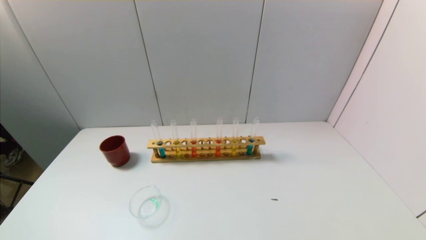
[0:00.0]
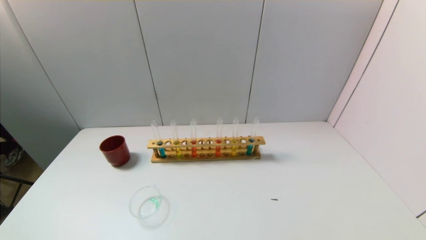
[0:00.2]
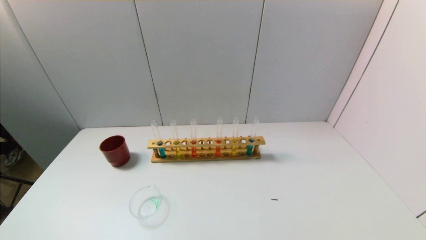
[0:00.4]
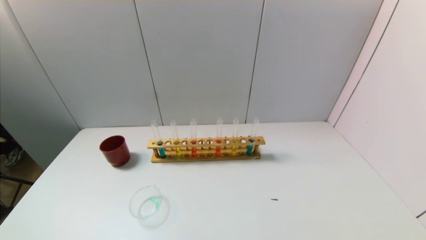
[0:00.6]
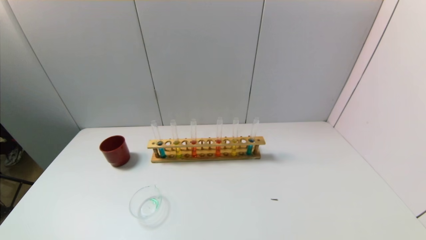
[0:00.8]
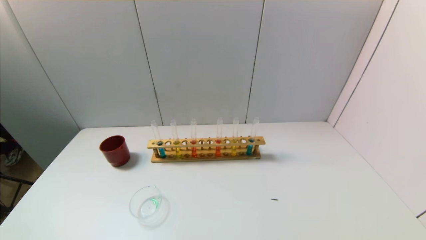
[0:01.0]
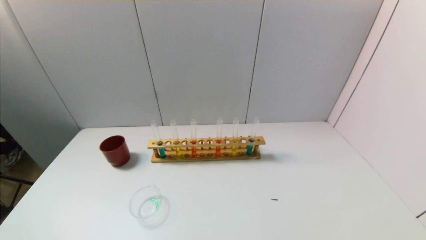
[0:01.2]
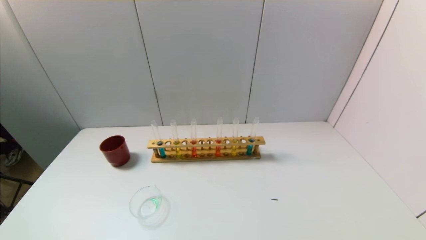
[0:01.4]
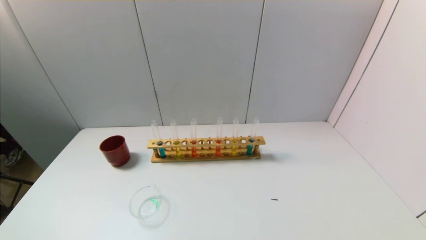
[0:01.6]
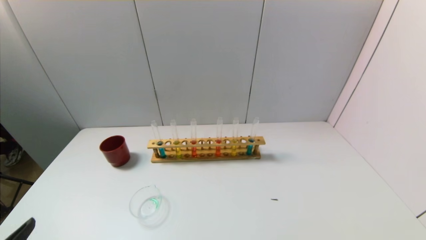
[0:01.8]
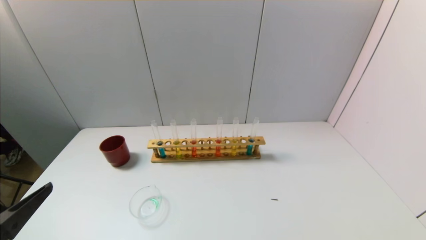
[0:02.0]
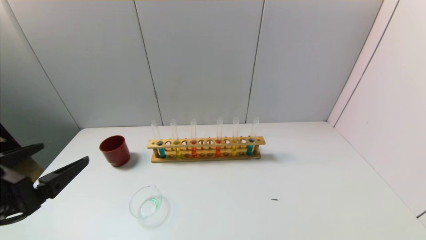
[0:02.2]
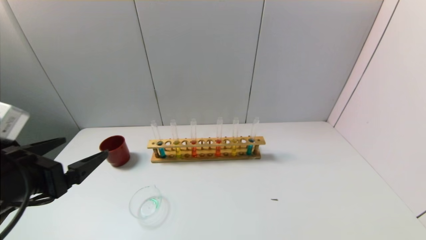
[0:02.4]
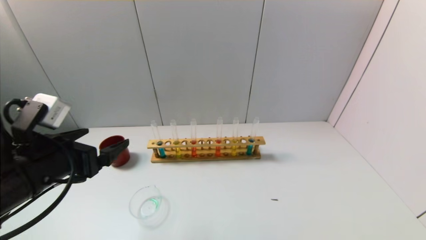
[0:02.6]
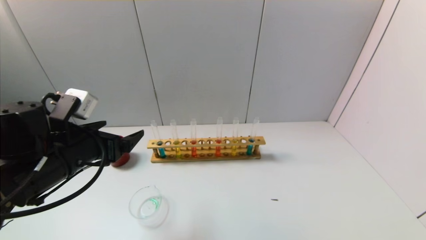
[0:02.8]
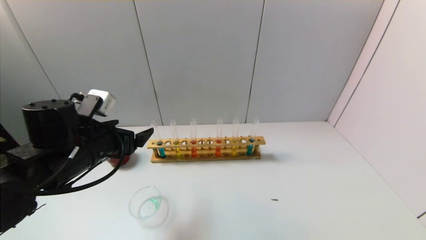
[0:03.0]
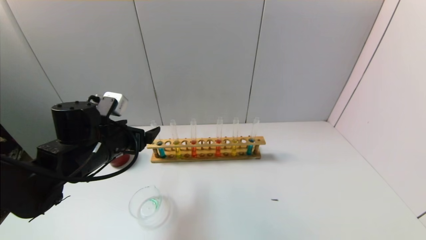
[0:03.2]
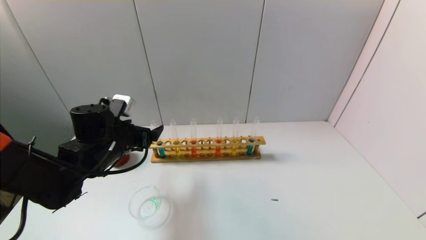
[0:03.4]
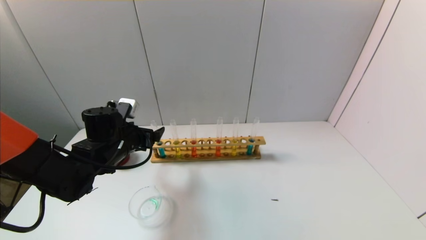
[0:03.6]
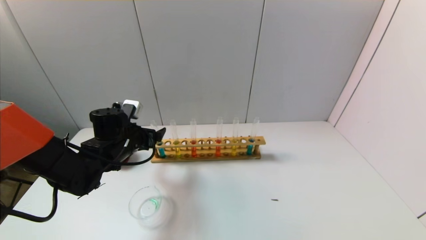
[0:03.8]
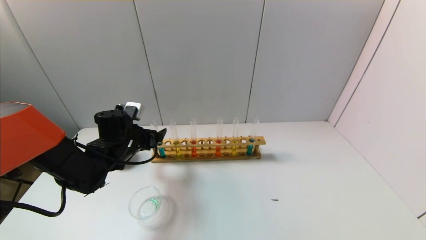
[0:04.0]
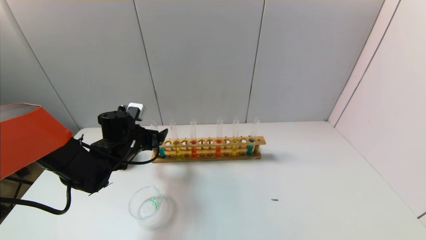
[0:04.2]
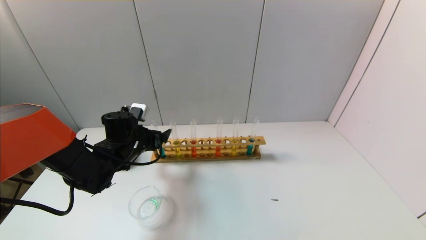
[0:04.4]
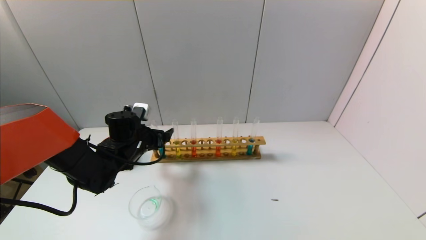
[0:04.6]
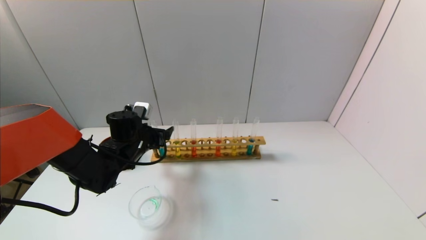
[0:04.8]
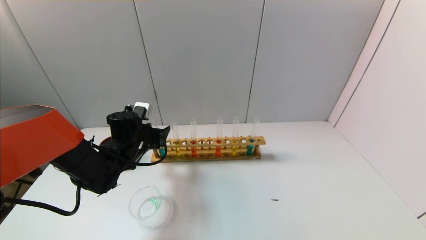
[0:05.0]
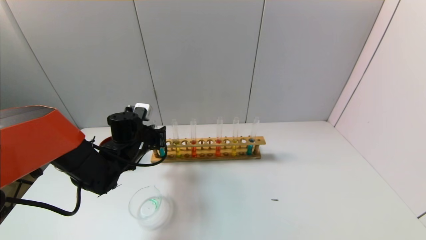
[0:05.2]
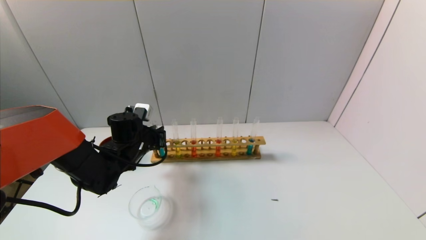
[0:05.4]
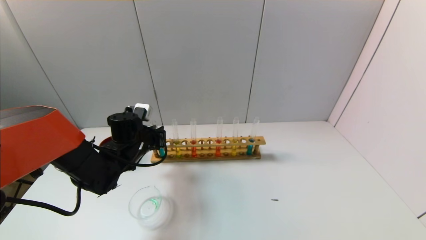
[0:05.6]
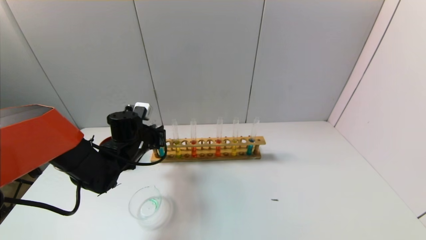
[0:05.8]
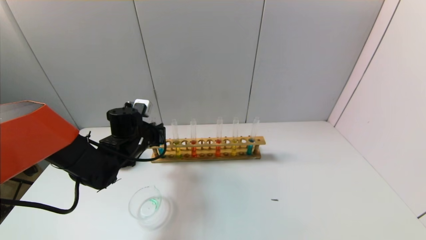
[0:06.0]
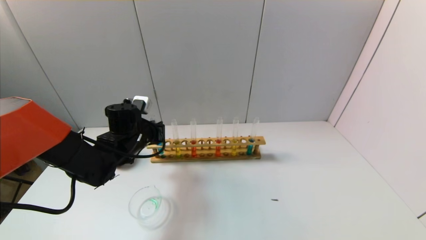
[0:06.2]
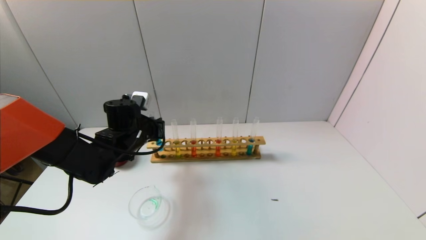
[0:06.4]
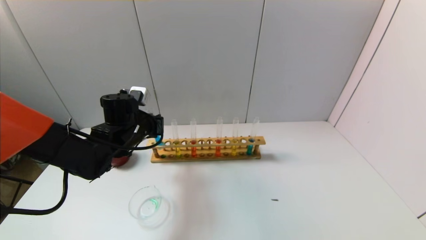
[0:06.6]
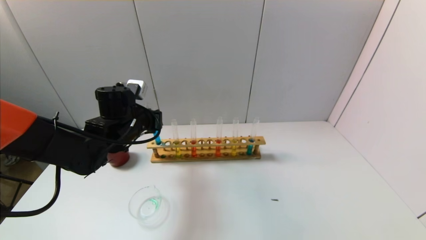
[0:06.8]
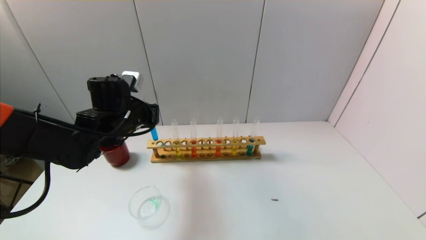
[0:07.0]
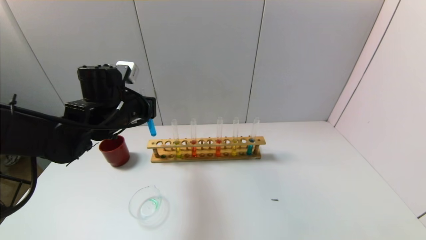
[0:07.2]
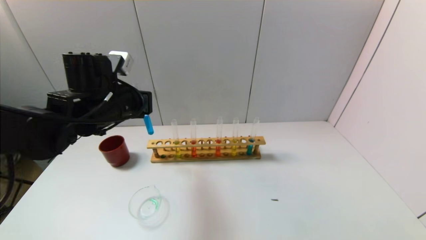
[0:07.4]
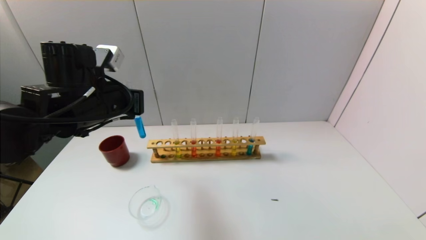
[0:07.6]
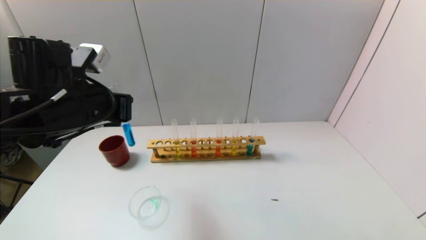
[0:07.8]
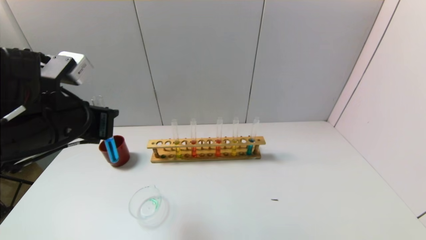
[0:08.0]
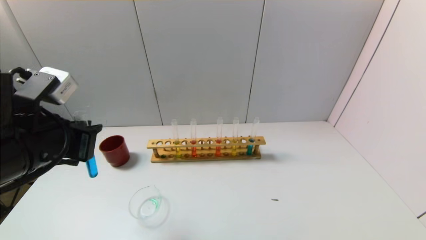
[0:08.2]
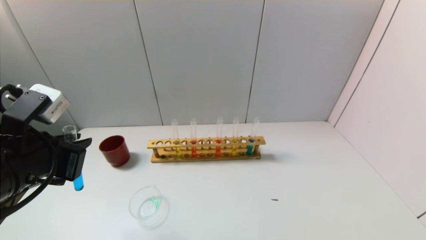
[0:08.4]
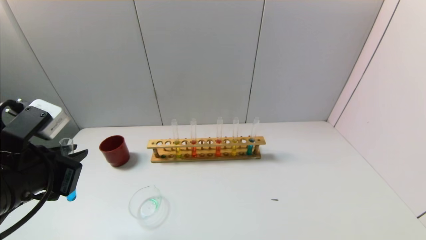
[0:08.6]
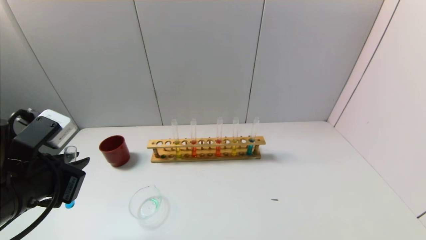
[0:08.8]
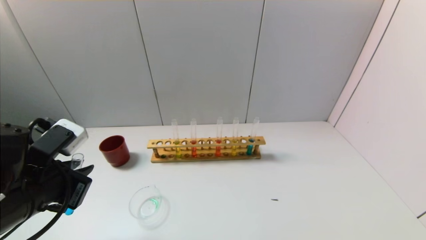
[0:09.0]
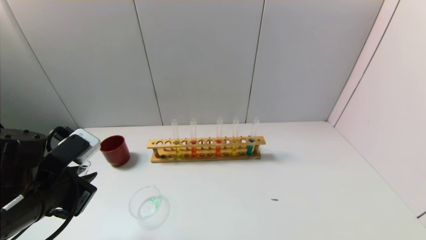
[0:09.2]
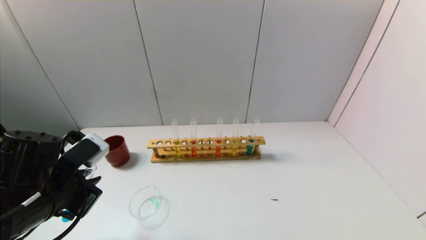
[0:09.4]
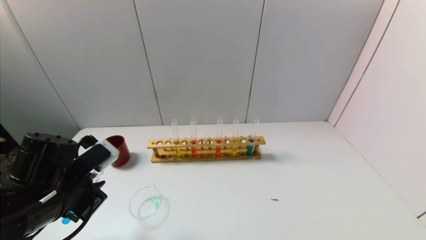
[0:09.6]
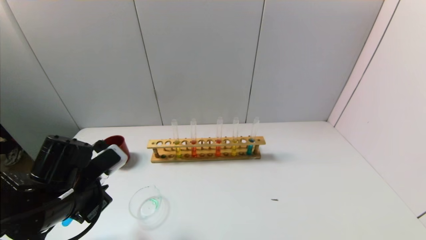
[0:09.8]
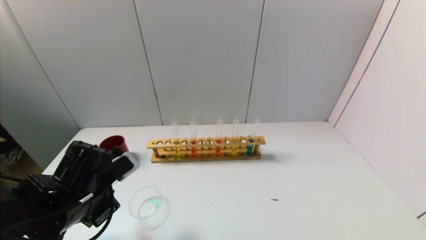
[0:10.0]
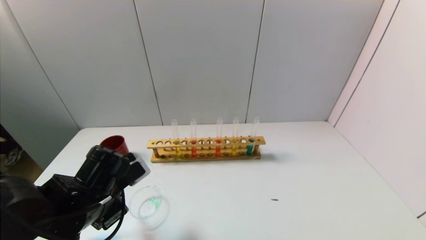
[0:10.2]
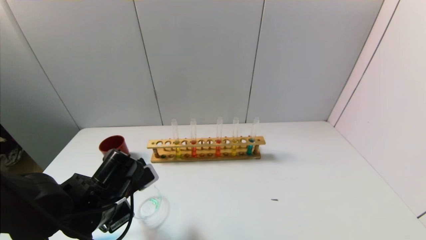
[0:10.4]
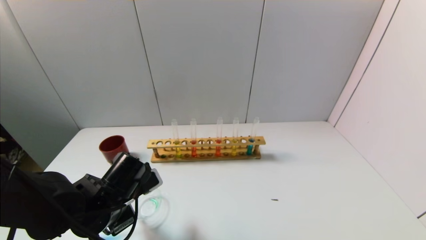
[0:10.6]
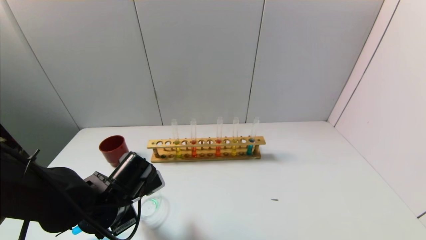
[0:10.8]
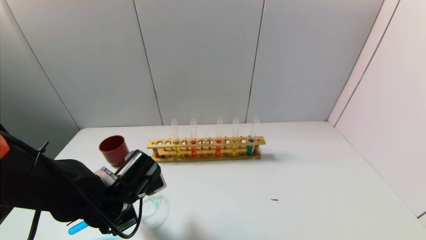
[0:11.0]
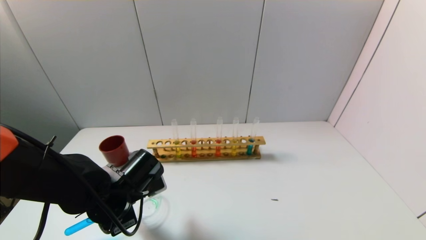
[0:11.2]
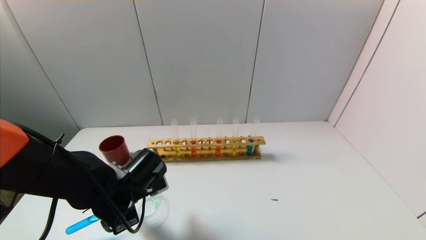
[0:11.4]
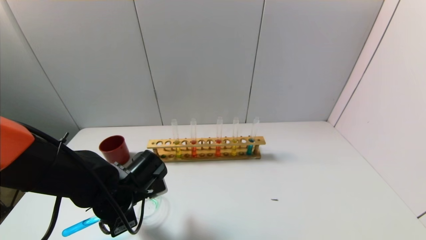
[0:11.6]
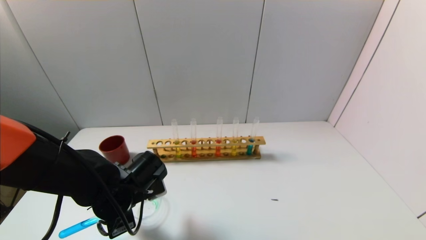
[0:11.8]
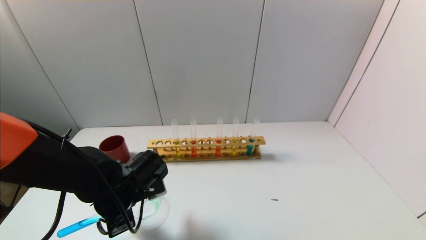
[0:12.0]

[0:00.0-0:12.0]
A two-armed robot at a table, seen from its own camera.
Task of the whole recording: pick up the test tube with yellow pigment and the test tube with blue pigment by grippers and pour them into the beaker.
Step, 0:00.0 to 0:05.4: Grasp the blue reagent with the left gripper.
0:01.6 to 0:03.0: The left gripper goes about 25 cm forward.
0:03.0 to 0:04.4: The left gripper moves forward and downward, some 10 cm.
0:04.4 to 0:06.0: The left gripper closes its fingers.
0:06.0 to 0:07.6: The left gripper shifts roughly 15 cm upward and backward.
0:07.6 to 0:09.0: The left gripper moves backward and downward, roughly 15 cm.
0:09.0 to 0:10.4: The left gripper travels downward and to the right by some 10 cm.

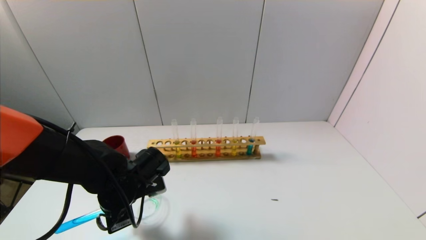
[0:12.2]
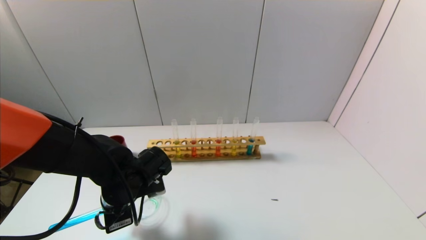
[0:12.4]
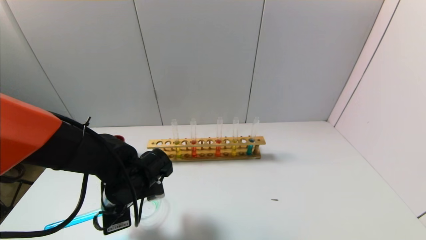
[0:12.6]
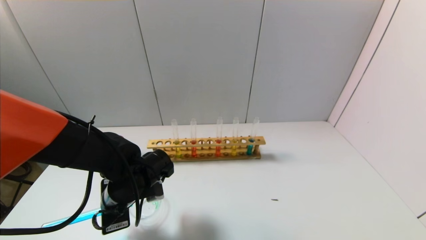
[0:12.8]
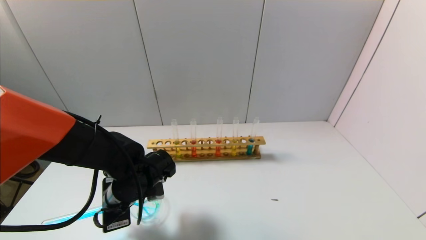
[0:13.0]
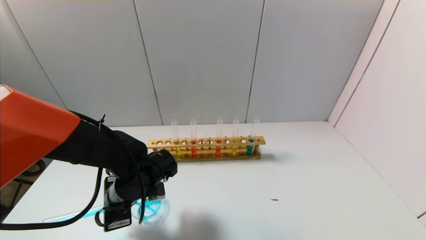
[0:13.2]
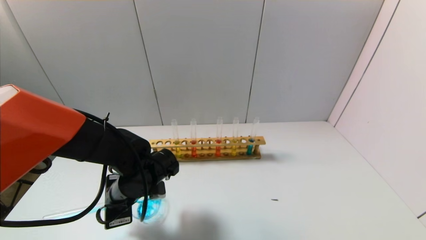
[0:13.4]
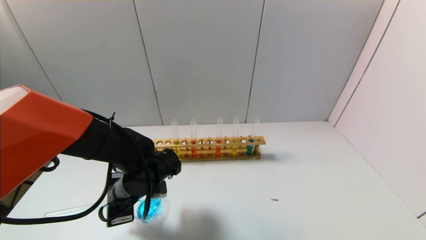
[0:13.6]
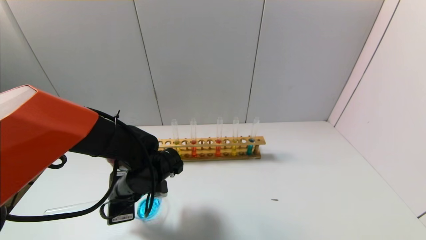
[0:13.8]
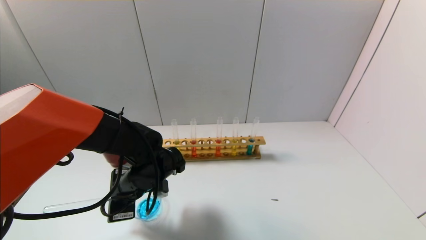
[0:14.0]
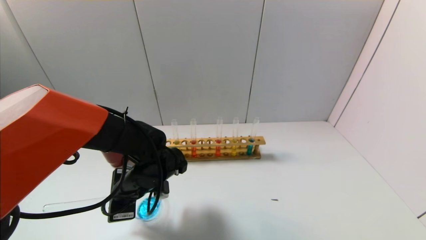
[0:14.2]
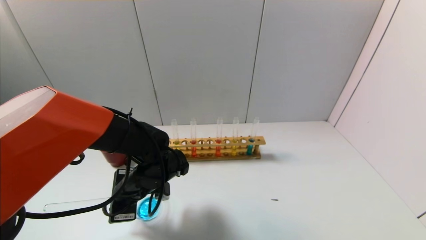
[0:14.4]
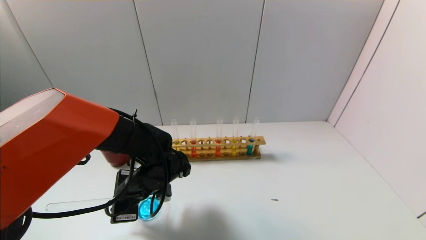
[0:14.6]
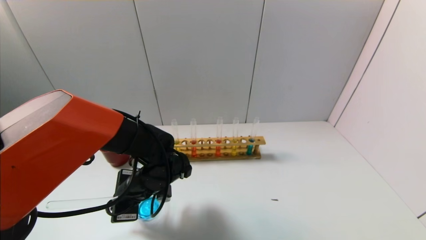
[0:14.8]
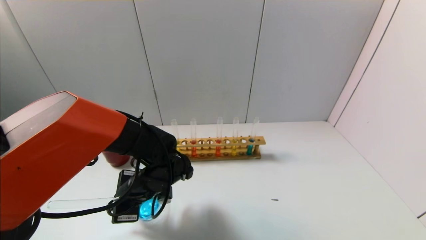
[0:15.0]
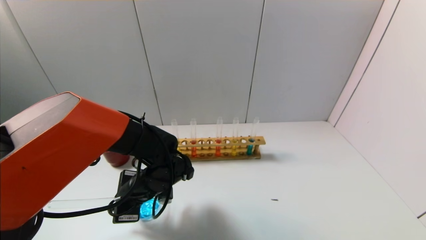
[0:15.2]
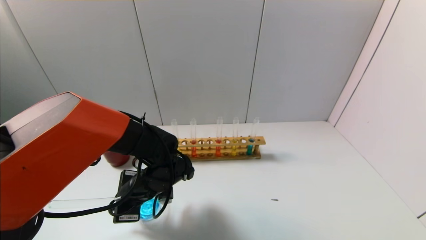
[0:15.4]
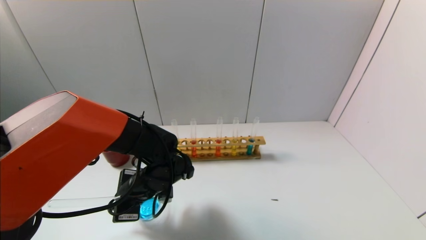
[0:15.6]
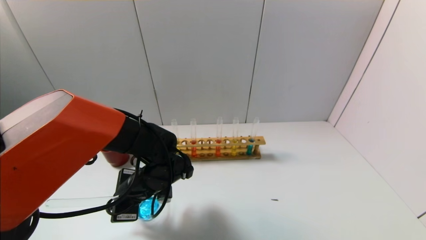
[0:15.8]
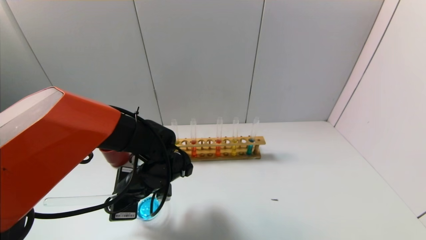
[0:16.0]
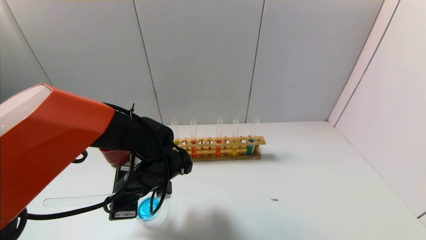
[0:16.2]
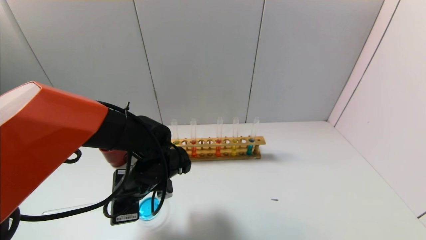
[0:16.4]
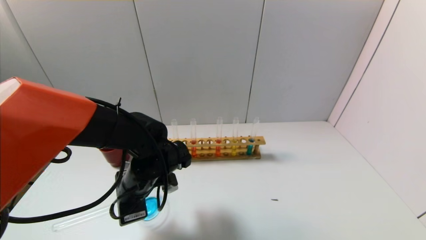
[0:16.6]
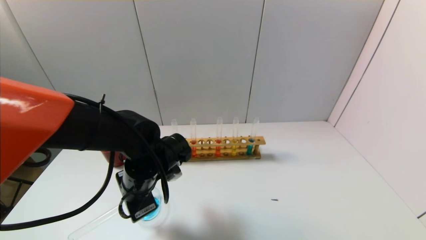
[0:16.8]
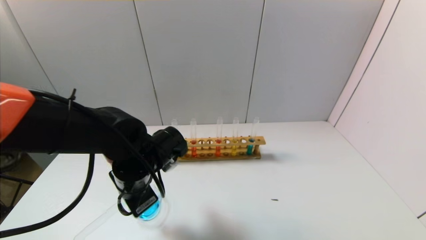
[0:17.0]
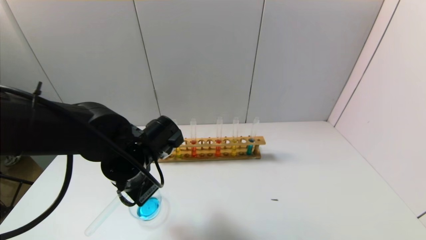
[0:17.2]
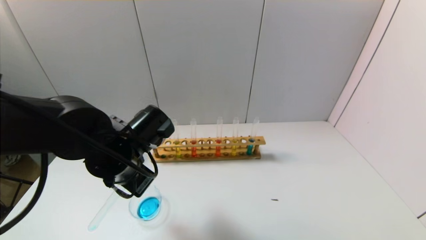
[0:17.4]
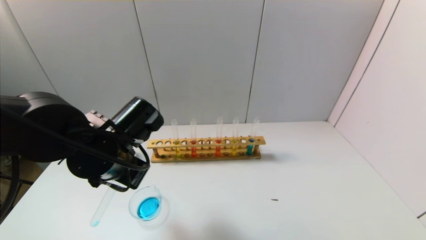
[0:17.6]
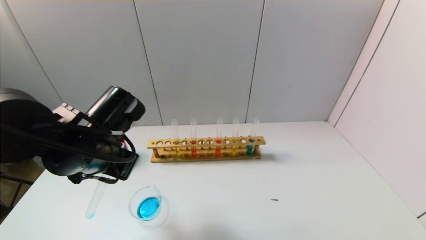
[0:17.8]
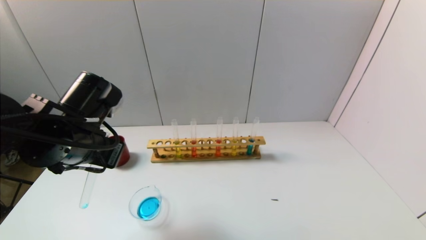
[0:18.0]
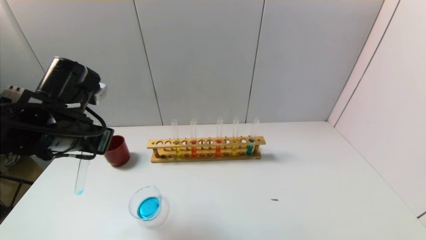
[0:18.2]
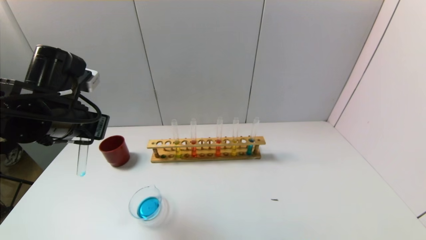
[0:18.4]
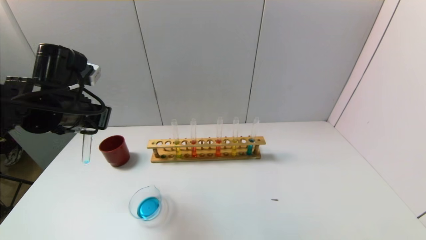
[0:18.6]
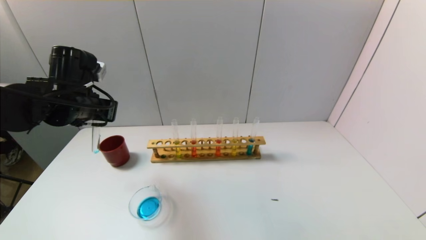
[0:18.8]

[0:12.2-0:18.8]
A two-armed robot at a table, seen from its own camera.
Task of the whole recording: pick up the test tube with yellow pigment and the test tube with blue pigment by grippers and pour them into the beaker.
Step, 0:12.2 to 0:15.2: Pour the blue reagent into the graduated cylinder with the left gripper.
0:12.2 to 0:13.8: The grippers make only small movements.
0:13.8 to 0:15.4: The grippers make only small movements.
0:15.4 to 0:17.2: The left gripper travels upward by some 10 cm.
0:17.2 to 0:18.8: The left gripper travels to the left, forward and upward by approximately 15 cm.
